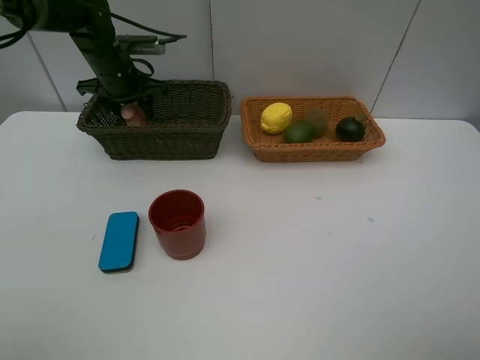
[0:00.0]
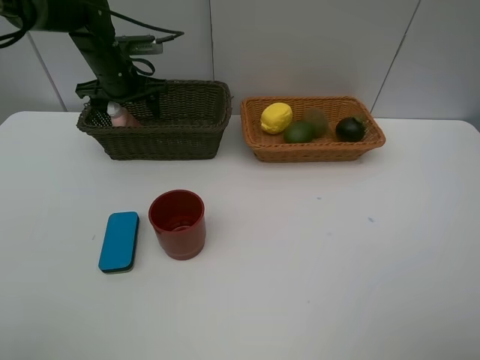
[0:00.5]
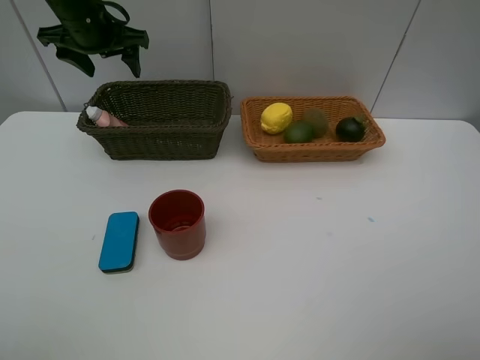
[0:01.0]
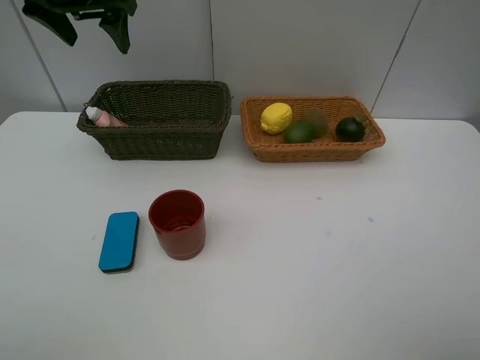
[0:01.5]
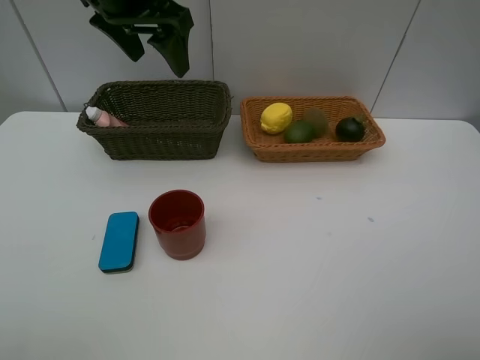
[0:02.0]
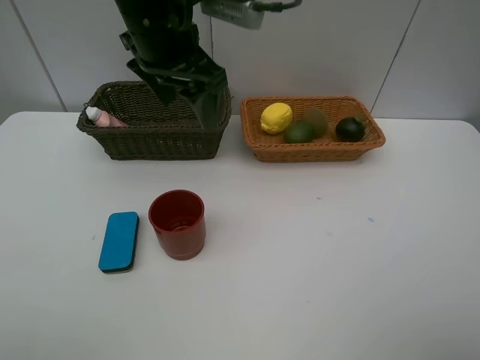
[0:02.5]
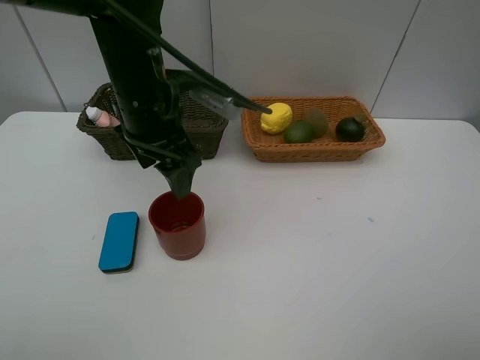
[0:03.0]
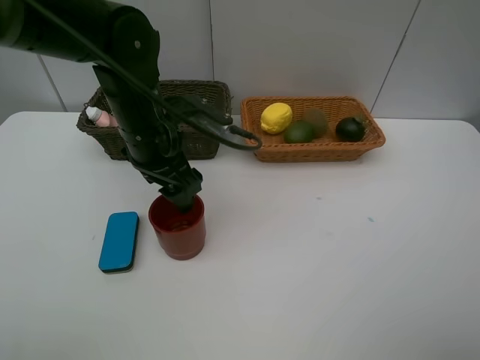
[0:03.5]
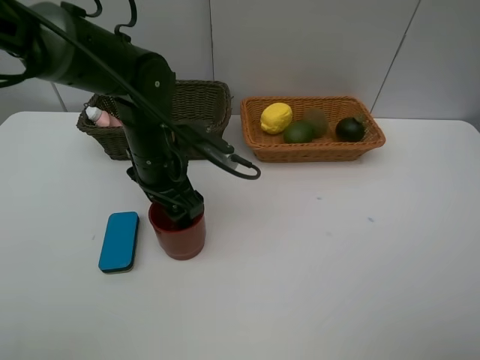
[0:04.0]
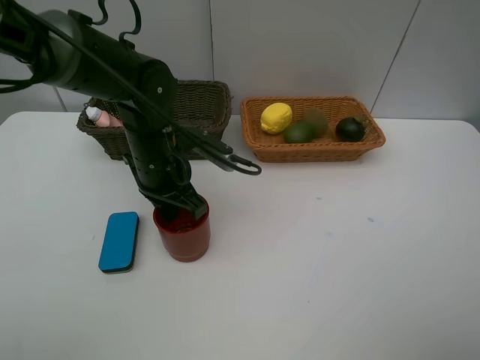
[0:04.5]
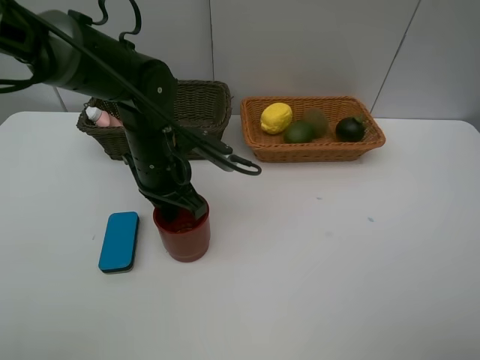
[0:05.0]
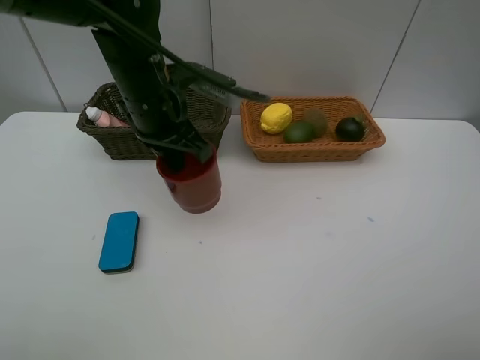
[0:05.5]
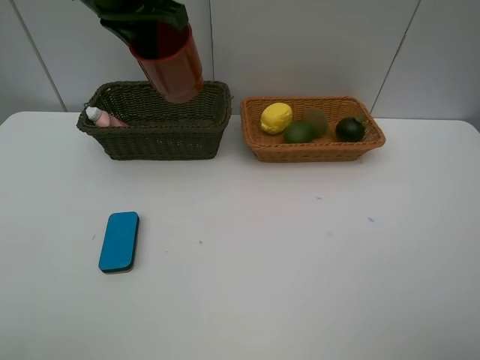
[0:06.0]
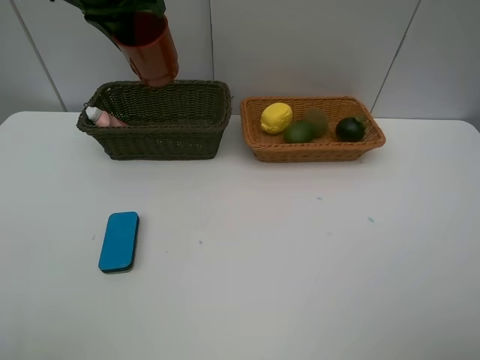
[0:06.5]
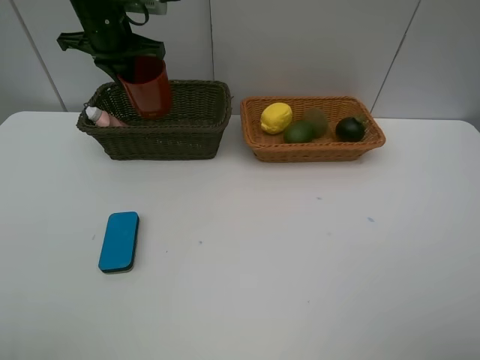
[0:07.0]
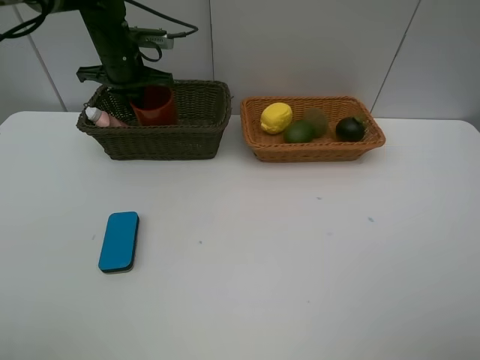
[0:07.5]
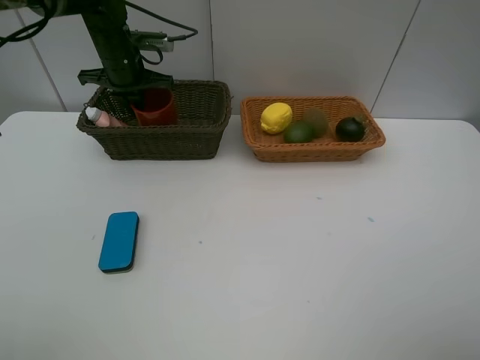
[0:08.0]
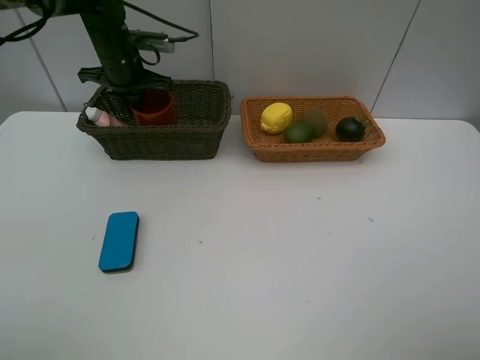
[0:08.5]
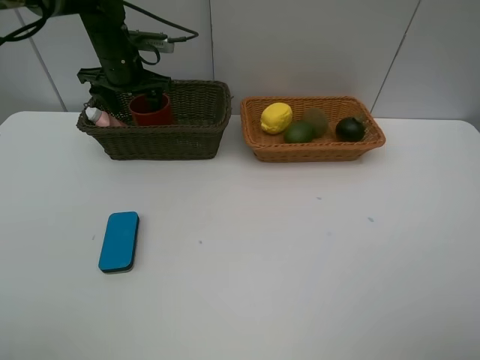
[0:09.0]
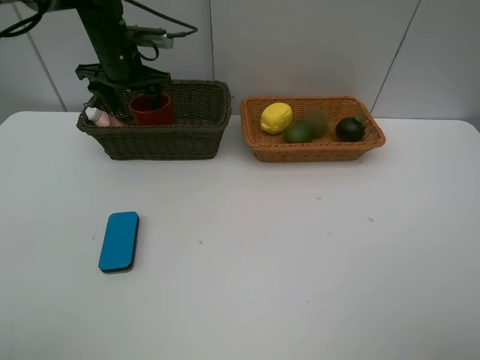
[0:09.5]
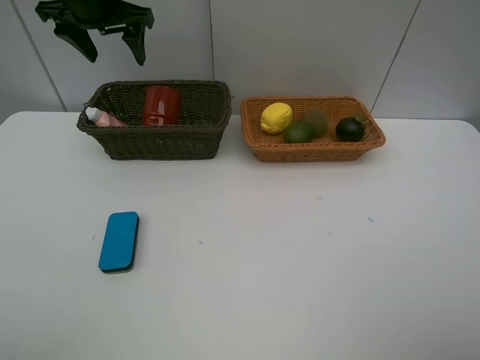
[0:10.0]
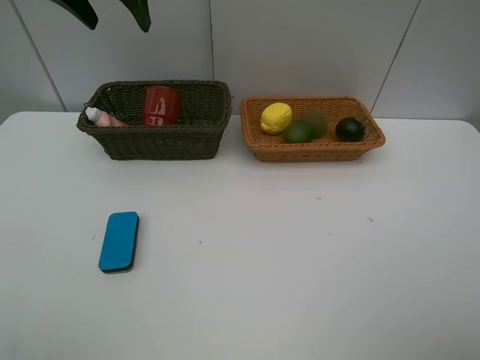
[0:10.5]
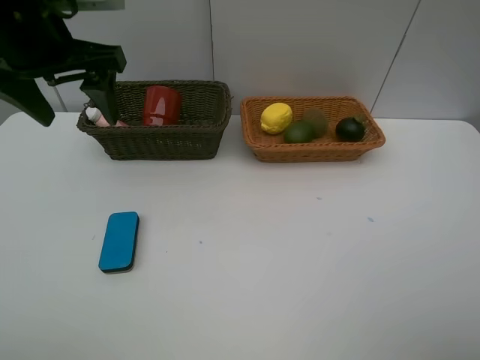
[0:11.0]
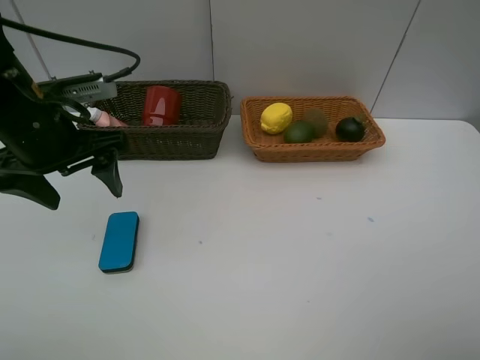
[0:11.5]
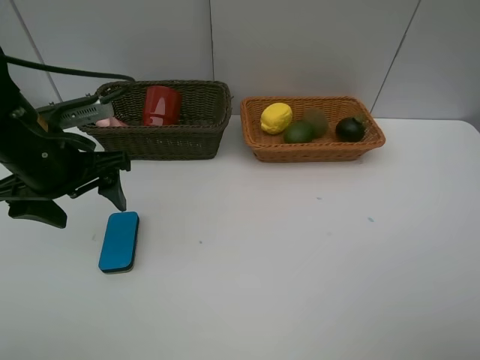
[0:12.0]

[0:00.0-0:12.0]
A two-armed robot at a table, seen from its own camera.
Task of the whole recording: Place multiple objects separately in different baskets.
Step, 0:01.0 to 0:05.0: Pick up the dark brown cup with left gripper.
Step, 0:05.5 to 0:09.5: Place the dark brown cup in the dark basket with left gripper.
0:00.0 to 0:02.0: The left gripper goes approximately 20 cm upward, backward and to the right.
0:02.0 to 0:04.0: The left gripper travels downward by about 20 cm.
0:04.0 to 0:06.0: The left gripper travels upward by approximately 20 cm, and closes.
0:06.0 to 0:08.0: The left gripper heads downward and forward, covering some 20 cm.
0:08.0 to 0:10.0: The left gripper goes some 10 cm upward, and opens its fingers.
0:10.0 to 0:12.0: The left gripper is displaced backward and downward by roughly 25 cm.

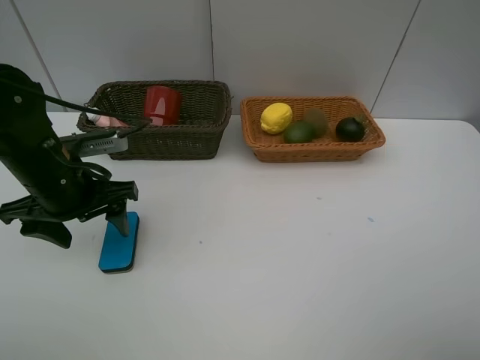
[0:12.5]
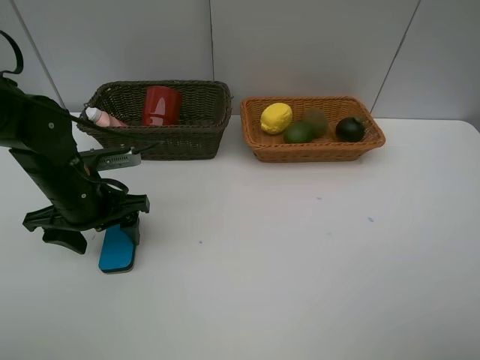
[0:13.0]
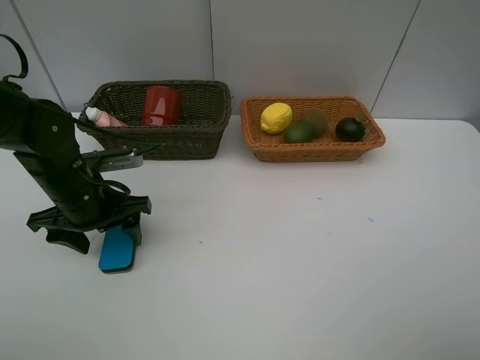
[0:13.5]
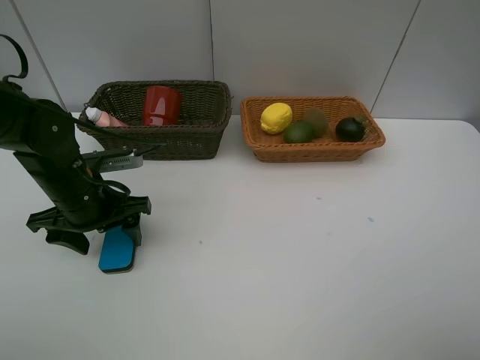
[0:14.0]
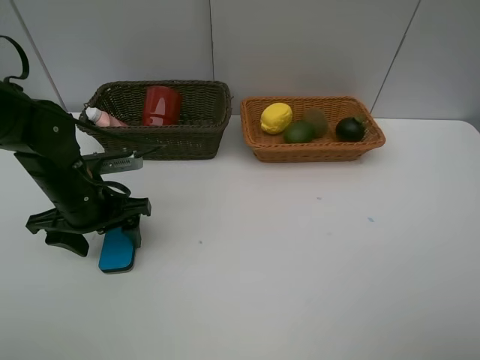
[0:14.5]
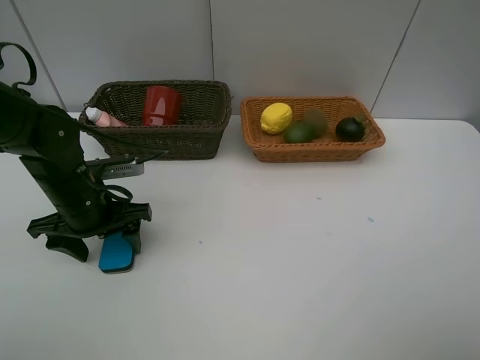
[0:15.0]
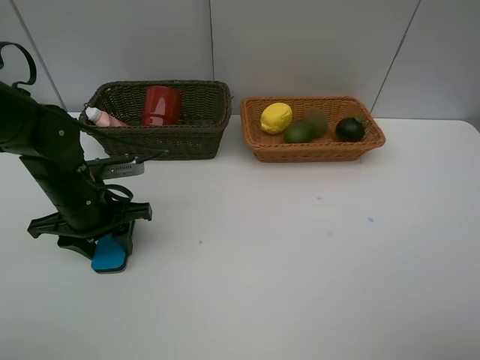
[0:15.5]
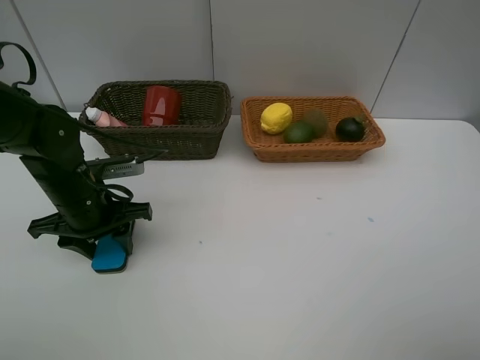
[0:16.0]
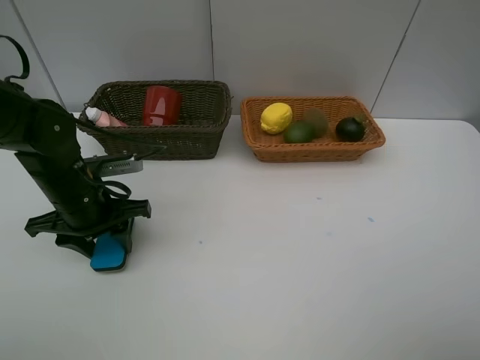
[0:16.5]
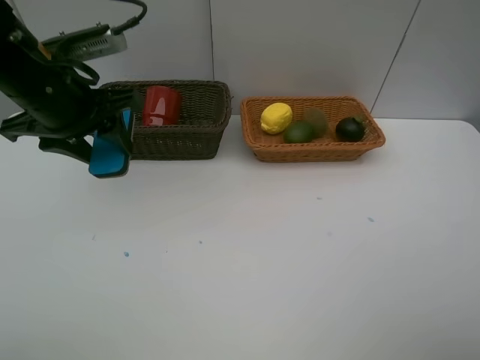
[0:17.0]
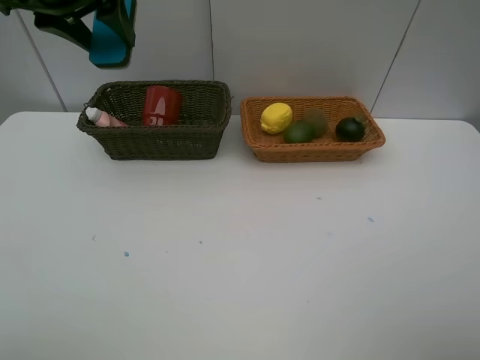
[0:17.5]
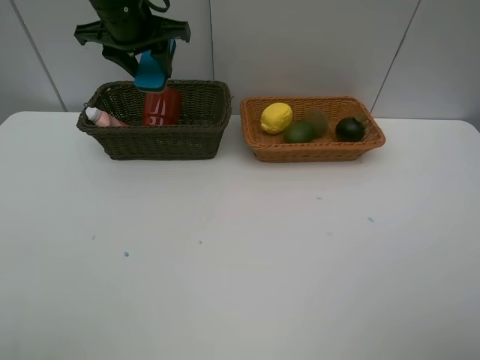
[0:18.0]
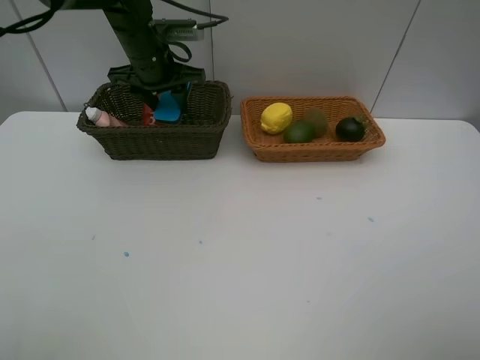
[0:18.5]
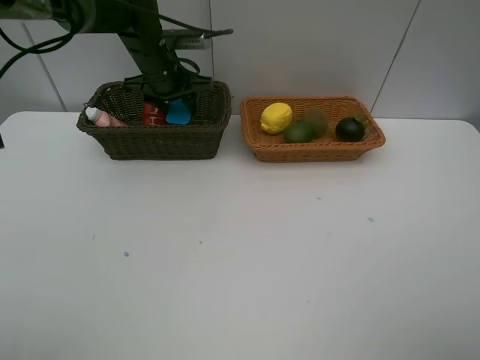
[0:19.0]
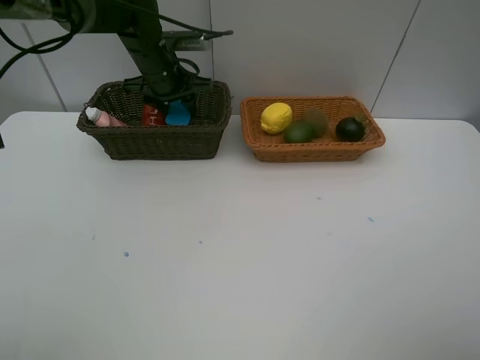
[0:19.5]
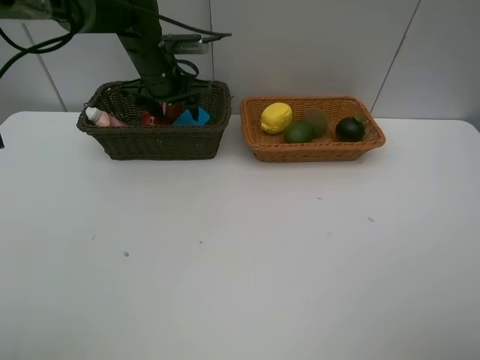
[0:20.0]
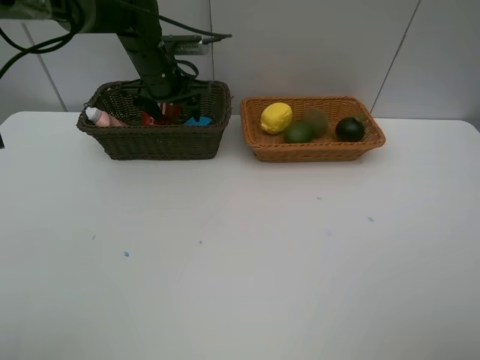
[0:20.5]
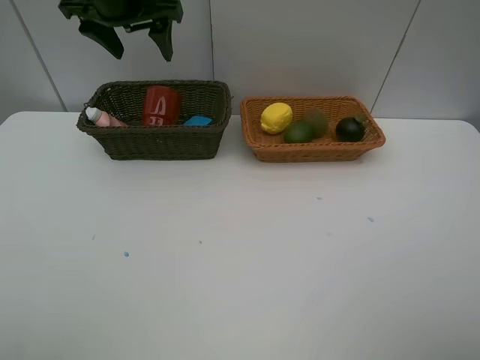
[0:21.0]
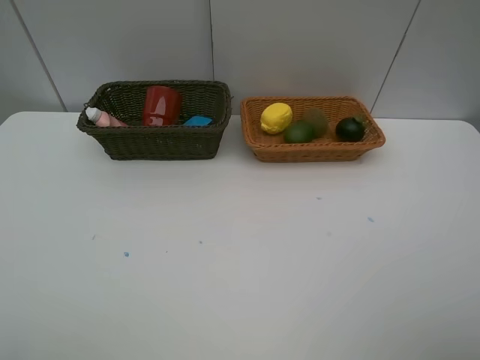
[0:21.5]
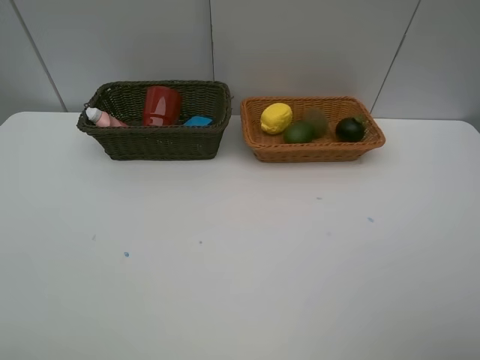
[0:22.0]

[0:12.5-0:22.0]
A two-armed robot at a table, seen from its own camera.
Task of the whole recording: Place multiple objects separately in different baskets.
Step, 0:12.5 to 0:16.5: Pick up blackboard eraser with left gripper.
Step, 0:17.0 to 0:20.5: Place the blackboard eraser in the dark basket with left gripper.
0:12.5 to 0:14.5: There are only small adjustments of the grippers.
0:14.5 to 0:16.5: Both grippers stay put.
0:16.5 to 0:18.0: The left gripper shifts roughly 25 cm forward and upward.
0:18.0 to 0:20.0: The left gripper moves downward, approximately 10 cm.
0:20.0 to 0:22.0: The left gripper moves backward, upward and to the left, roughly 50 cm.

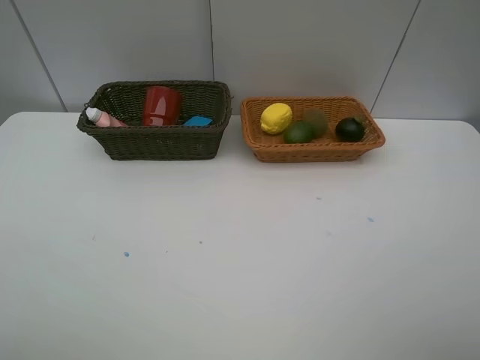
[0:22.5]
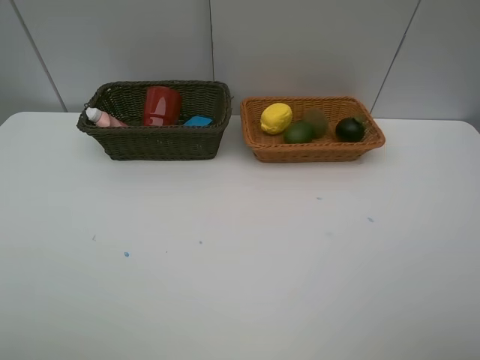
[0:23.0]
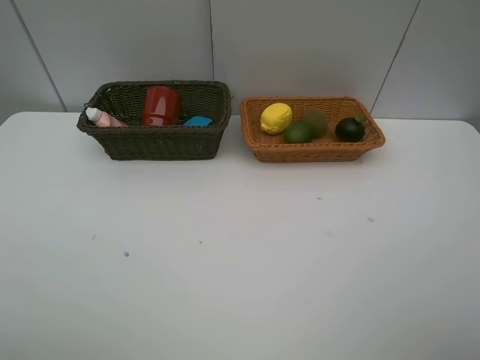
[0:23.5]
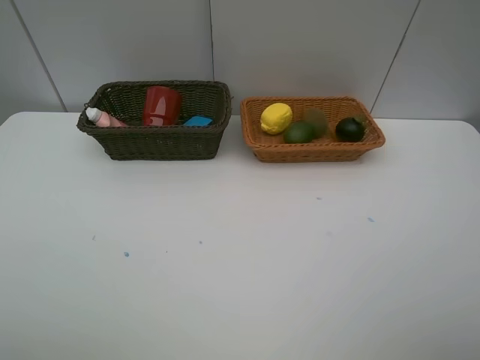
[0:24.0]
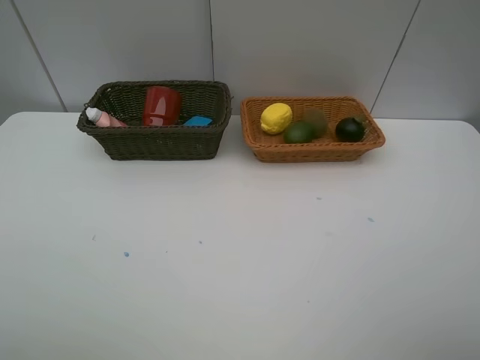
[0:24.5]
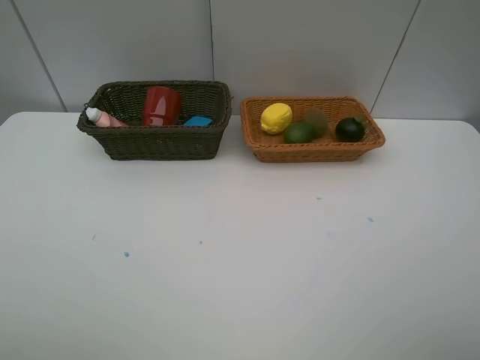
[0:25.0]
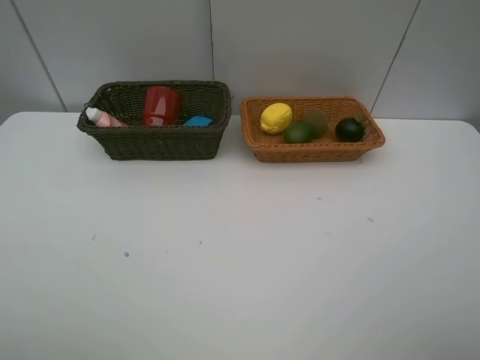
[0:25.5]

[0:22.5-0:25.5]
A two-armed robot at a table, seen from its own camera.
Task of the whole recording: Place multiple objects separately in different baskets.
0:24.0 to 0:25.5: Both grippers stay about where they are.

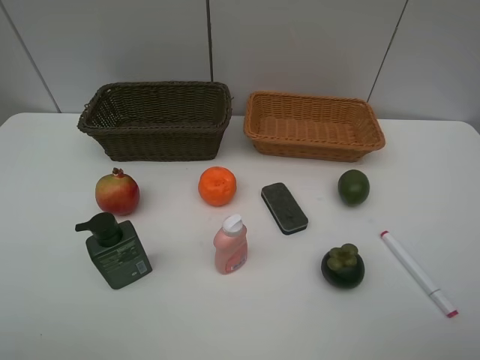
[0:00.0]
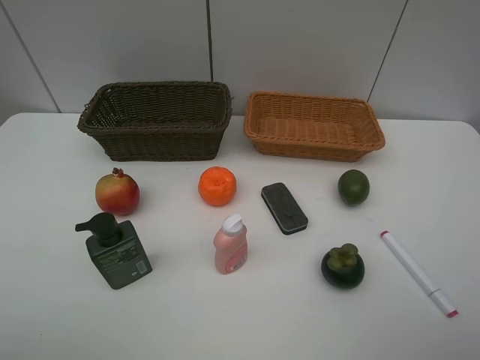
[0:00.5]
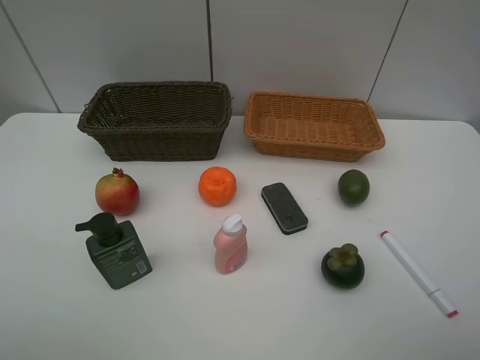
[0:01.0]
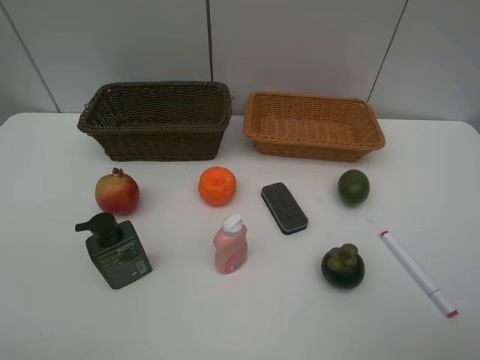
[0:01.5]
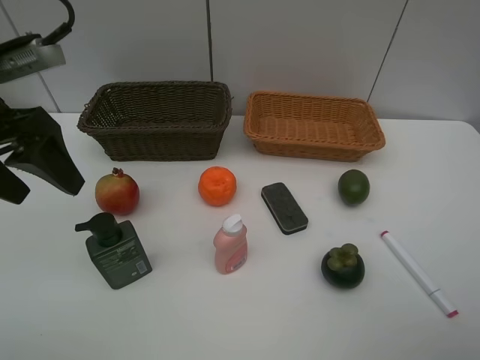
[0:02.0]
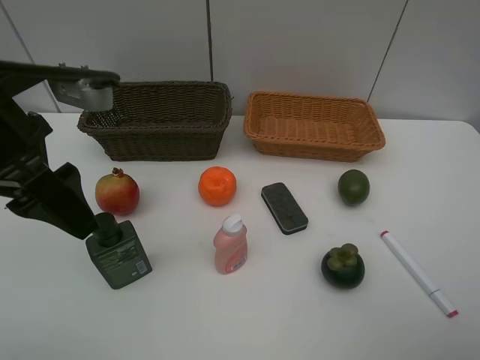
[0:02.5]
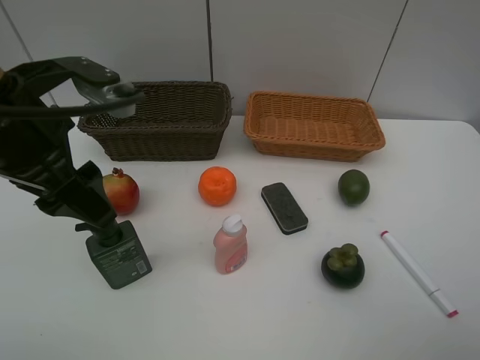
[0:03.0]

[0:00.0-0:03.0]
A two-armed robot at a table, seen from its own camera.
Task of the whole recording: Place multiple objects separately in different baskets.
0:01.5 to 0:03.0: The left gripper heads to the right and downward, covering some 10 cm.
